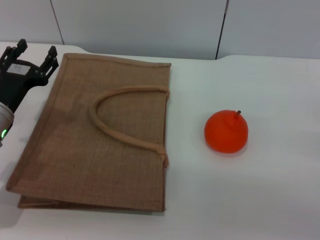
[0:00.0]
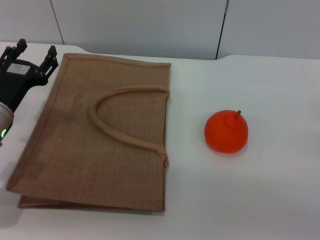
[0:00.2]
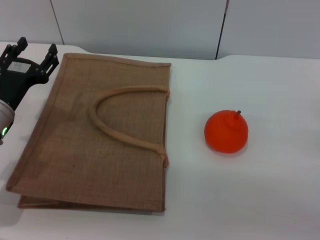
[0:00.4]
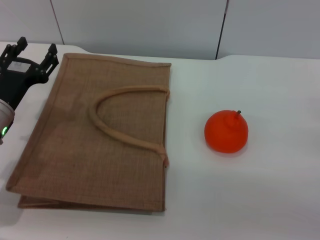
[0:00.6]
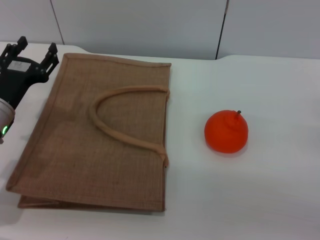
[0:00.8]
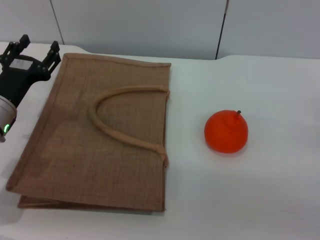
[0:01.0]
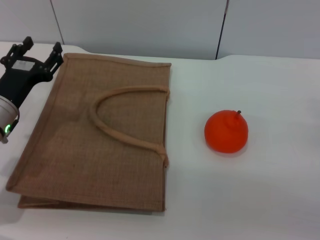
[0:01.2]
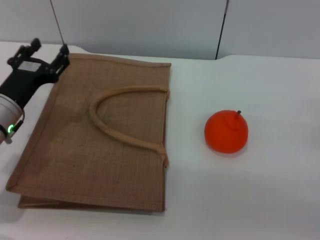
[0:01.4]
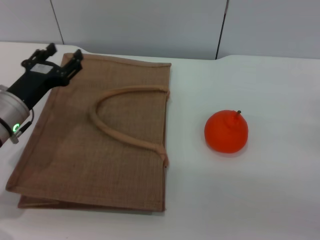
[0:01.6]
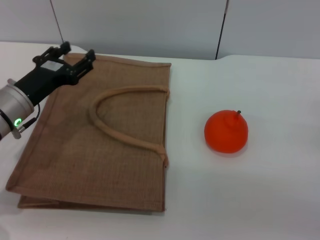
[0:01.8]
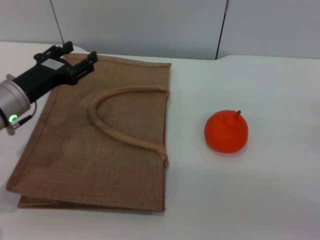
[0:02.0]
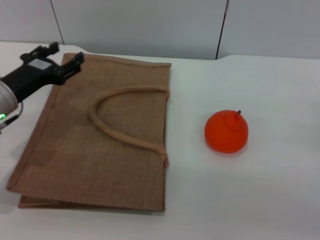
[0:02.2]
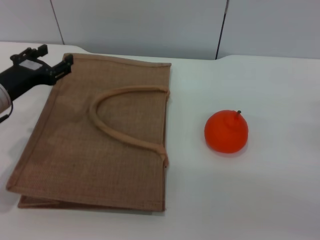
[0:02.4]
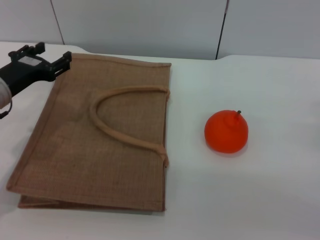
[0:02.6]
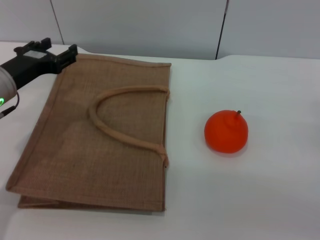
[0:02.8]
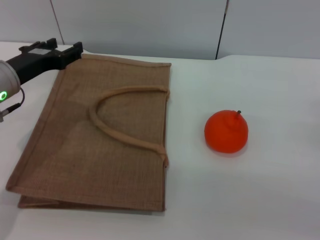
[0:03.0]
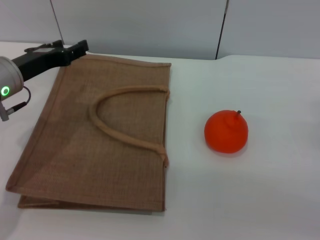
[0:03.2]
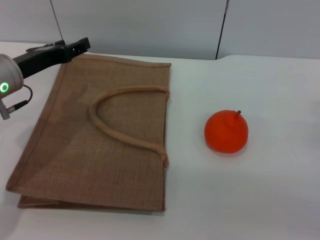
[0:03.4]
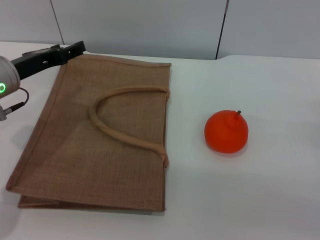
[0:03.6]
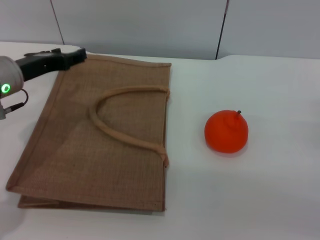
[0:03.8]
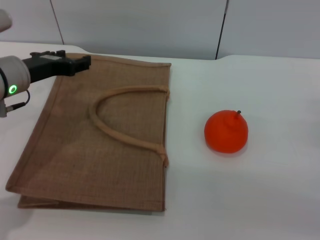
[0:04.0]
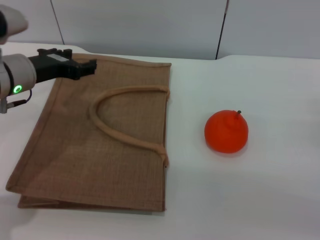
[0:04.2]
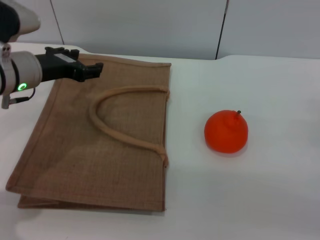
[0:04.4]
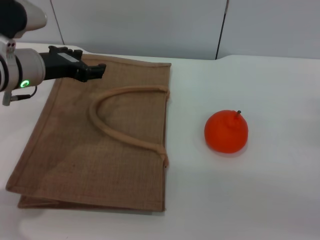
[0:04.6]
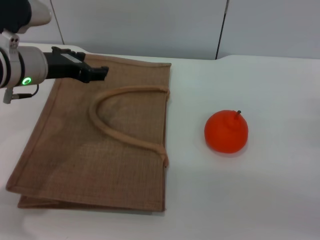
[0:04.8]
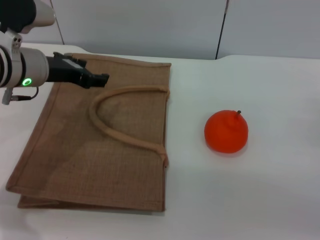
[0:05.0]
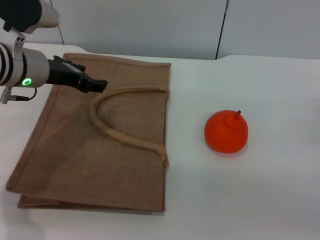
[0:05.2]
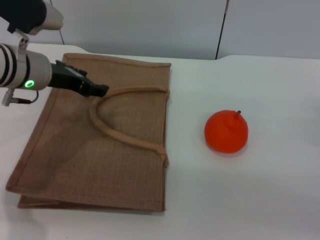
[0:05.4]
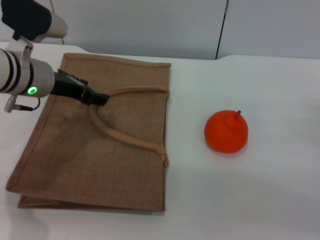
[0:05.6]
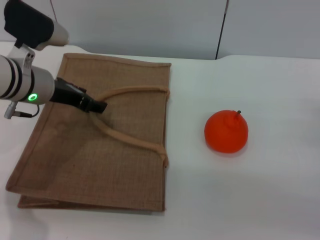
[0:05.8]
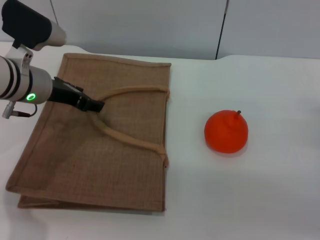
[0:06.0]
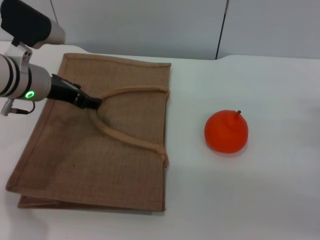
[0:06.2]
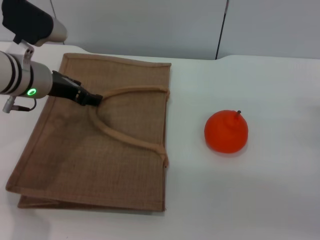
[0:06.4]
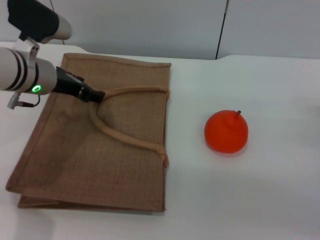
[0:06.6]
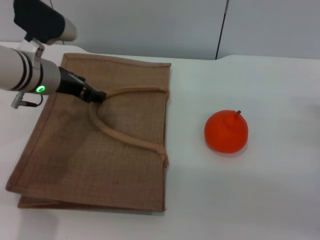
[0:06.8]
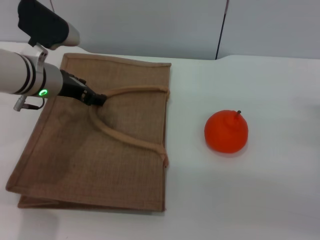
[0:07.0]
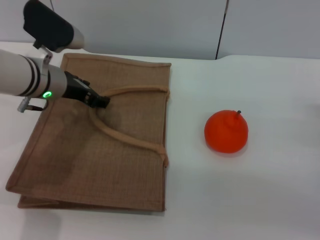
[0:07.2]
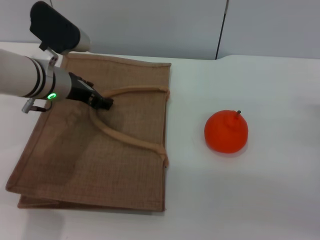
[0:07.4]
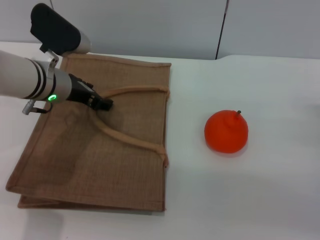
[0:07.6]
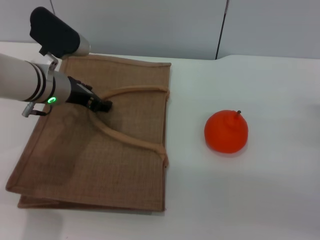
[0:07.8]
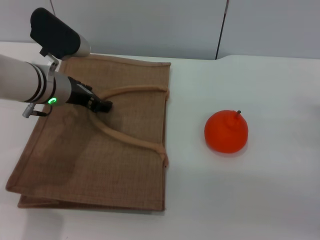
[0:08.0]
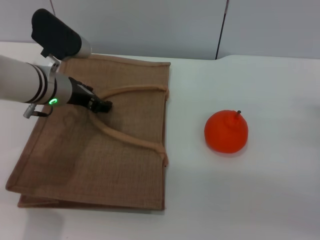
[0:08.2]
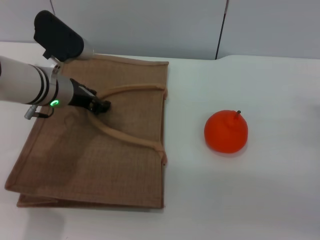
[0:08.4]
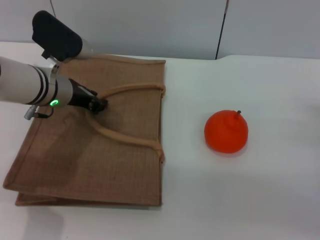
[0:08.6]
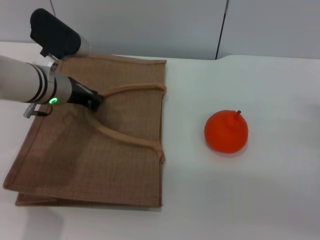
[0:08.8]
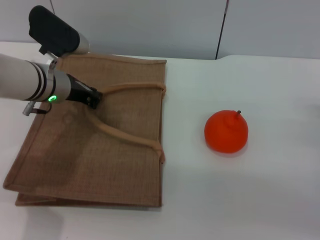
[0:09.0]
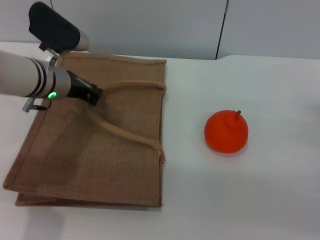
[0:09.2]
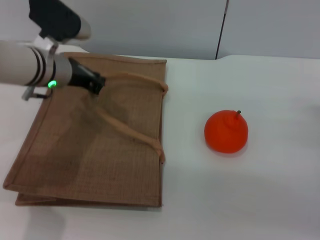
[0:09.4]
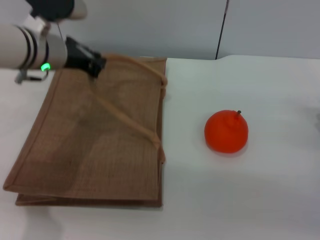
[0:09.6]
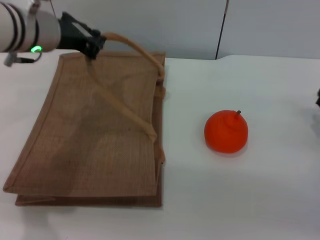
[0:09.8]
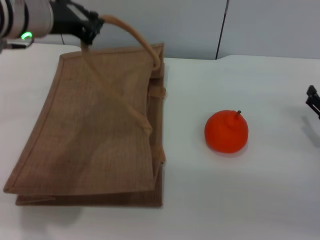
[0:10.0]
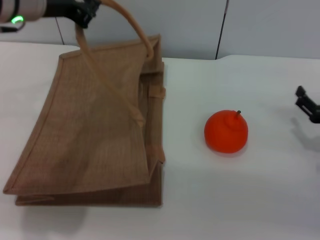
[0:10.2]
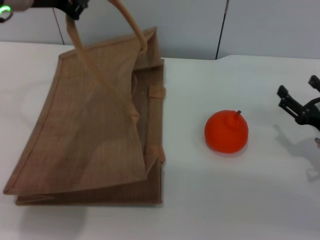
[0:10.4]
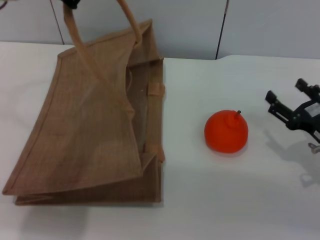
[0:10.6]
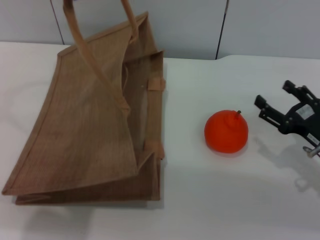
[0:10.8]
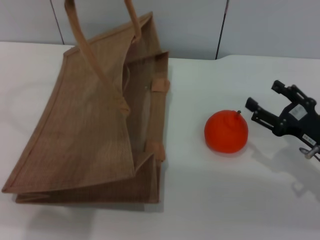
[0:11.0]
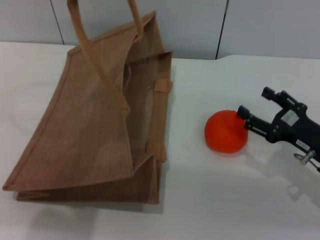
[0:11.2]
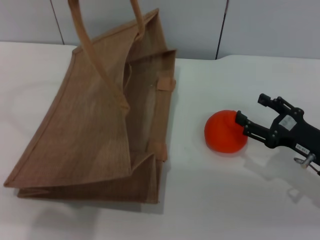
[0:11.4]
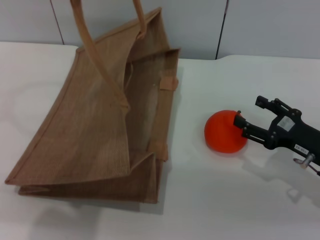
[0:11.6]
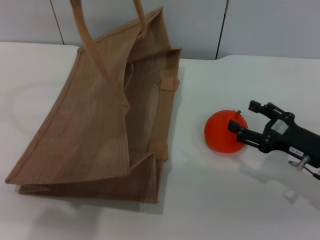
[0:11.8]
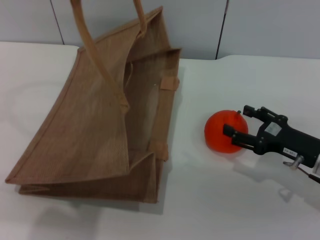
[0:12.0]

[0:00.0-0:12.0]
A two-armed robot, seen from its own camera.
Task of the whole recording: pick up the orange from the table and place it in the brown handbag.
Step, 0:00.0 to 0:09.6: Lift the woven bag with the left gripper to open it.
0:00.0 to 0:01.6: The grippers move only a little.
0:01.6 to 0:03.0: The left gripper goes approximately 5 cm upward.
0:06.0 to 0:07.6: There are only small adjustments of the grippers.
0:07.6 to 0:09.0: The left gripper closes its fingers.
0:09.0 to 0:10.4: The left gripper is displaced upward by approximately 15 cm.
0:10.4 to 0:12.0: The left gripper shifts by about 5 cm.

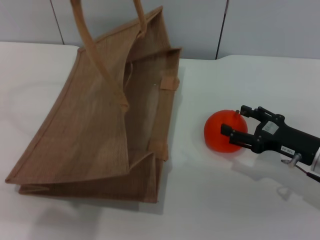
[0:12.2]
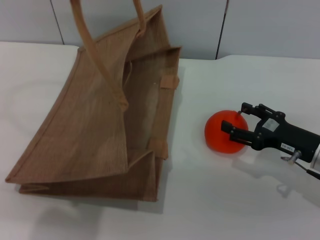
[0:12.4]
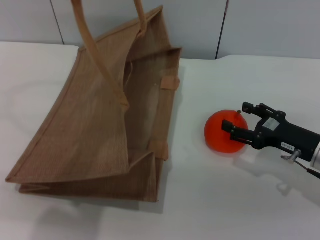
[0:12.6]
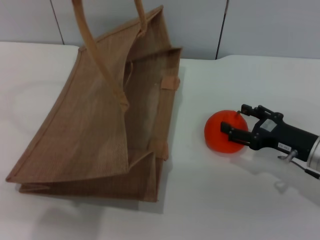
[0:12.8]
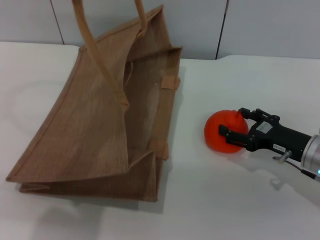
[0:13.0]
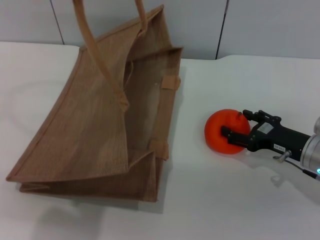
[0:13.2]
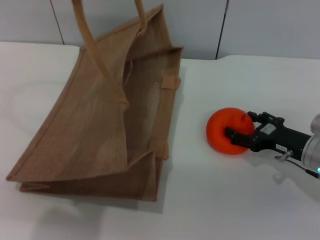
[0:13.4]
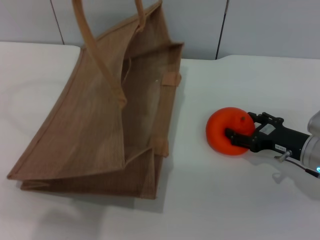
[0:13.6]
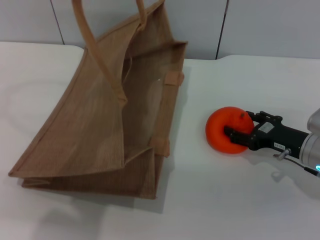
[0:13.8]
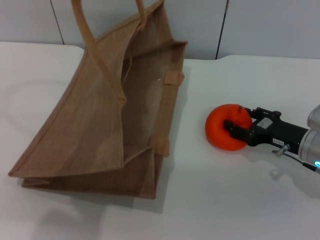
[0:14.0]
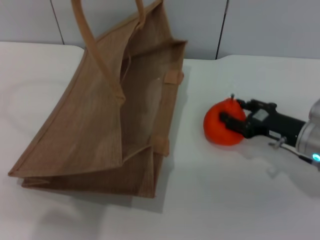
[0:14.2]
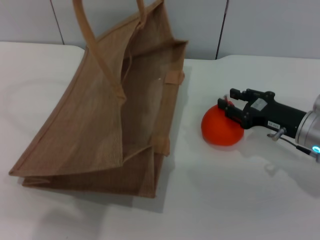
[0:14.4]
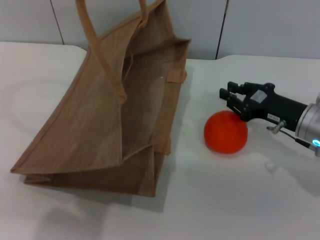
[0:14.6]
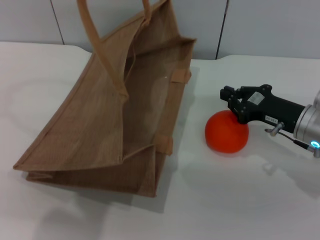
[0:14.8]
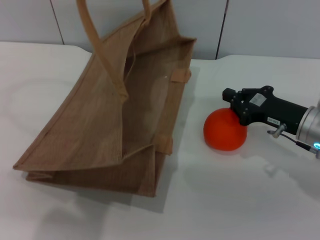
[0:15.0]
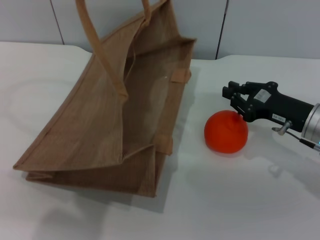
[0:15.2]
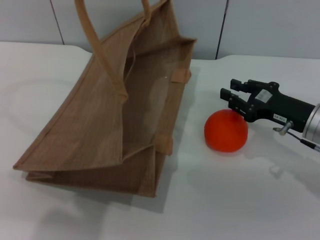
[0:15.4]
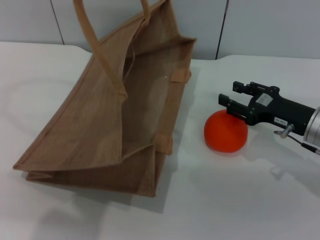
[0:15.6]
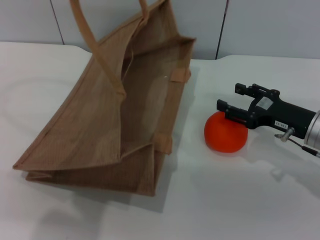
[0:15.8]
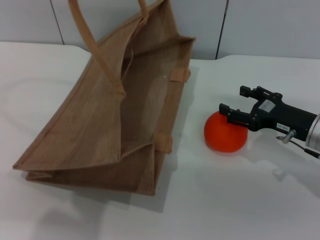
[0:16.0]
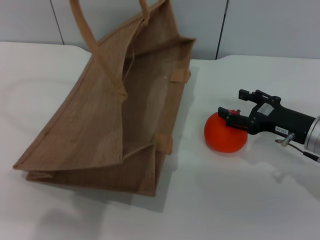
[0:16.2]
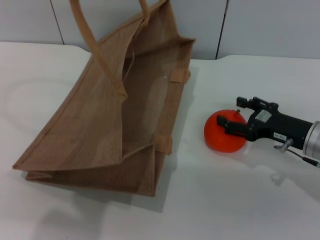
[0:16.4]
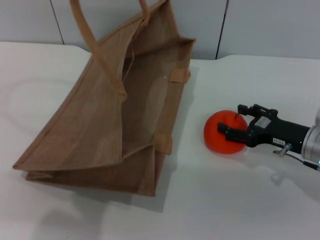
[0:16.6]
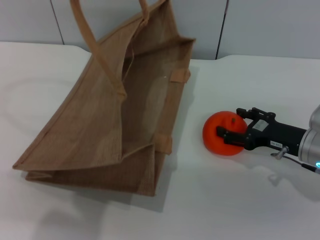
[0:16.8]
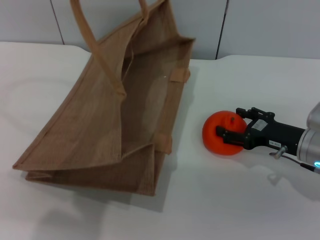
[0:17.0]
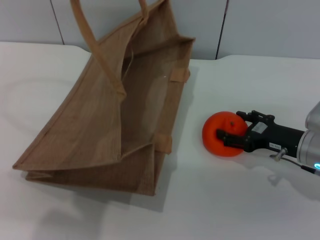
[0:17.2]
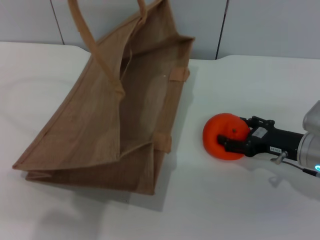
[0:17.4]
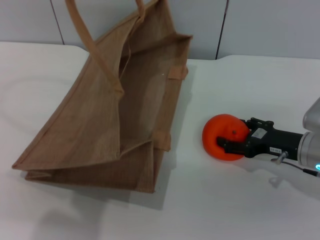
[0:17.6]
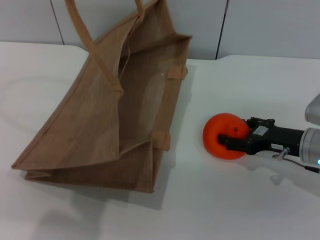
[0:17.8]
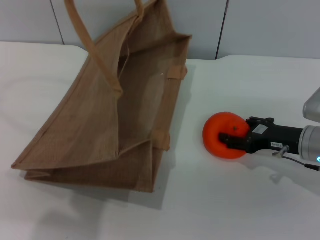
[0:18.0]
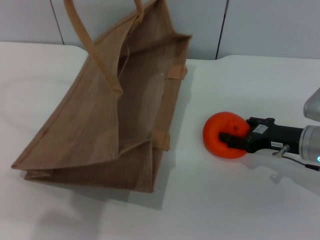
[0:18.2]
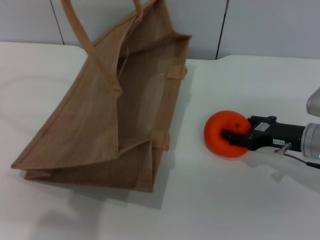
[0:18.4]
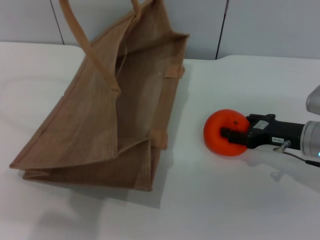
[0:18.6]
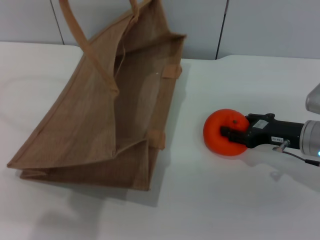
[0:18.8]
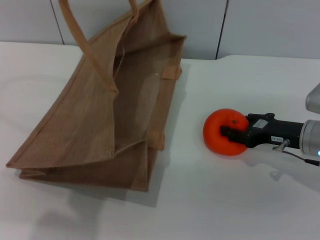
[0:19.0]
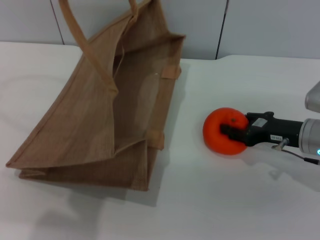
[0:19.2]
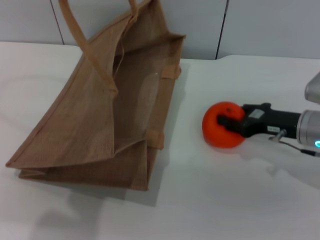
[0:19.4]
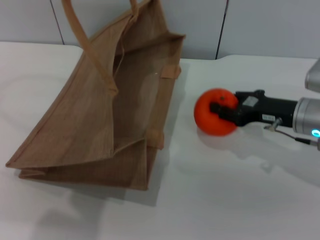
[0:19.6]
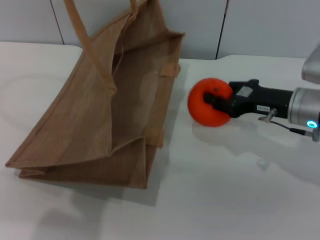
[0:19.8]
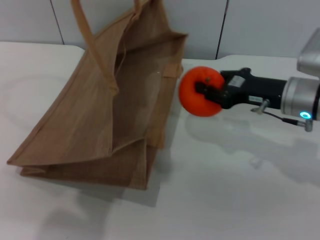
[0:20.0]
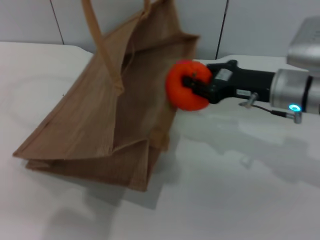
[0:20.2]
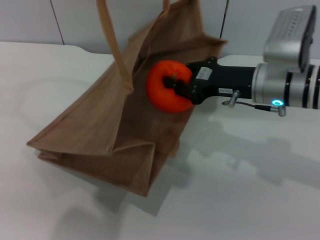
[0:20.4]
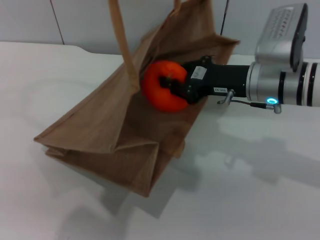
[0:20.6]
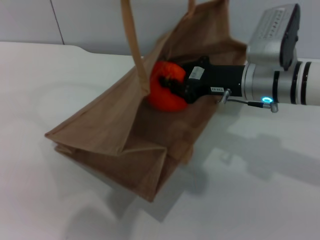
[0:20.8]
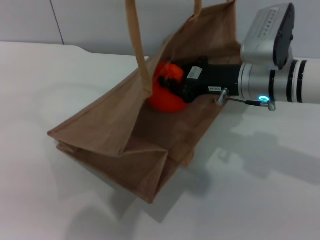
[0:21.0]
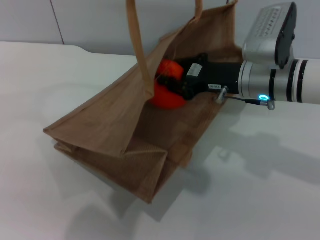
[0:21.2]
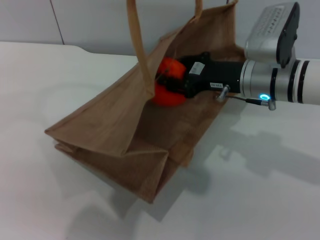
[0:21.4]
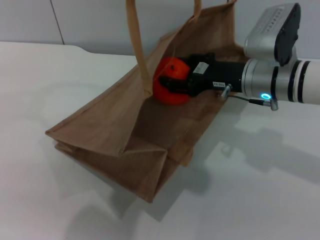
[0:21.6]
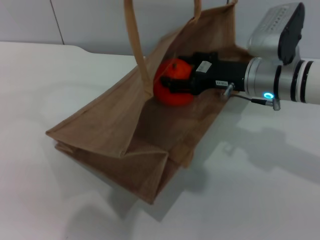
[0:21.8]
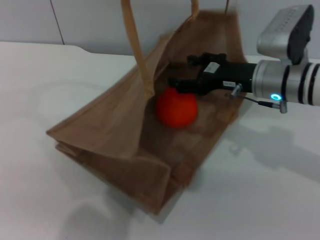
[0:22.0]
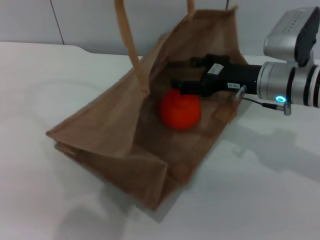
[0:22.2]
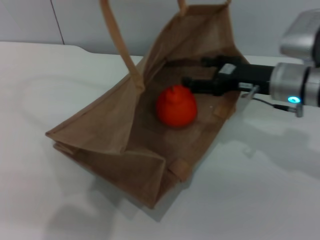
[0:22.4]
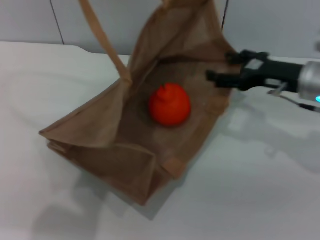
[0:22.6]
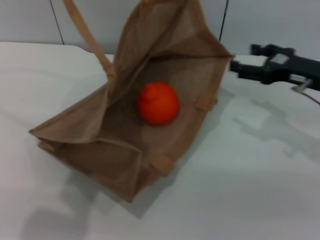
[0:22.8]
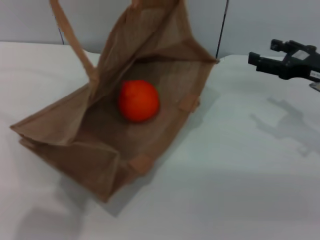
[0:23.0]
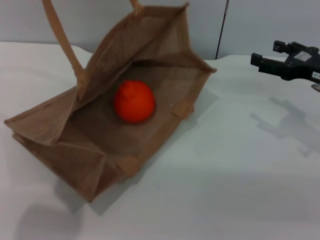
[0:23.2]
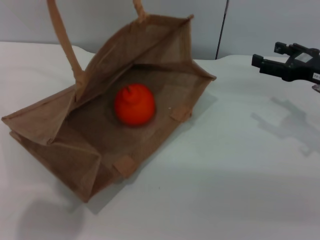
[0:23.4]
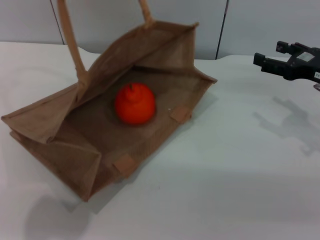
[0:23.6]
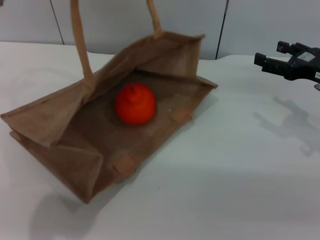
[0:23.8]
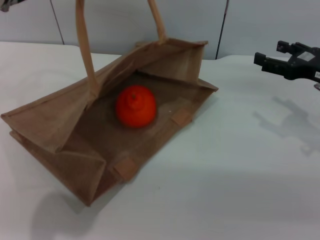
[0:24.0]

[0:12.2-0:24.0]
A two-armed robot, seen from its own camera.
Task of the whole recording: pick up the orange from the table and place it in the brown handbag.
Step, 0:12.2 to 0:19.8: Pick up the orange with the right gripper.
Step, 0:20.0 to 0:22.6: Place the orange into the woven bag with the right gripper.
0:12.2 to 0:13.6: There are only small adjustments of the grippers.
0:13.6 to 0:15.2: The right gripper moves approximately 5 cm, and closes its fingers.
0:15.2 to 0:16.6: The right gripper opens up.
0:16.6 to 0:18.2: The grippers stay close to where they were, moving slightly.
0:18.2 to 0:19.6: The right gripper closes up.
0:19.6 to 0:21.0: The left gripper shifts about 5 cm to the right, while the right gripper shifts about 10 cm to the left, and closes up.
0:21.0 to 0:22.6: The right gripper shifts approximately 10 cm to the right, and opens its fingers. Meanwhile the left gripper goes about 5 cm to the left.
0:22.6 to 0:24.0: The right gripper heads to the right, covering about 5 cm; the left gripper ends up some 5 cm from where it was, and opens its fingers.
